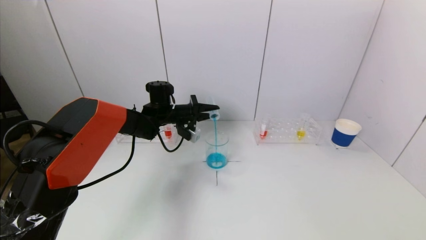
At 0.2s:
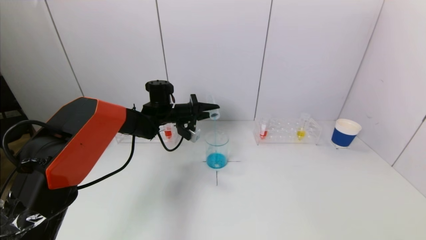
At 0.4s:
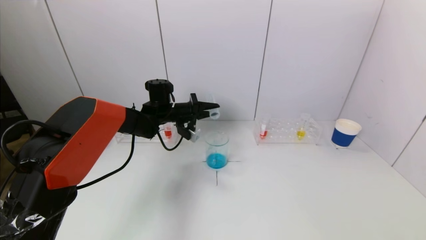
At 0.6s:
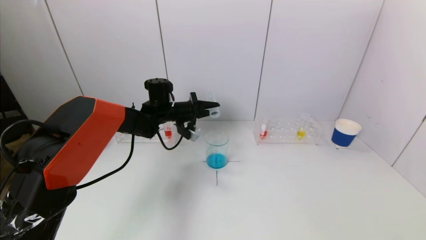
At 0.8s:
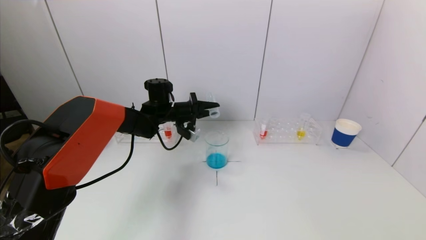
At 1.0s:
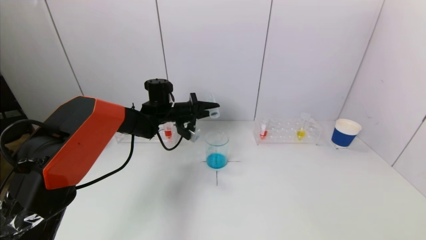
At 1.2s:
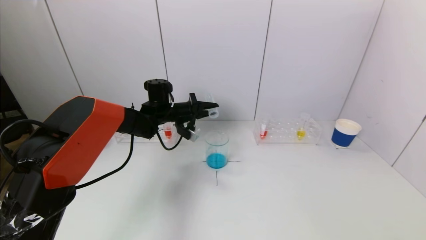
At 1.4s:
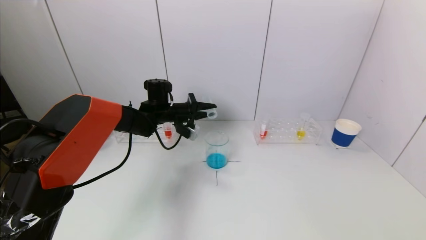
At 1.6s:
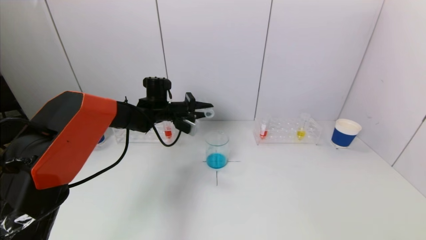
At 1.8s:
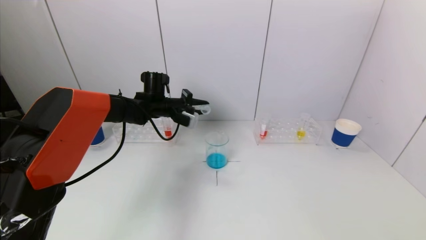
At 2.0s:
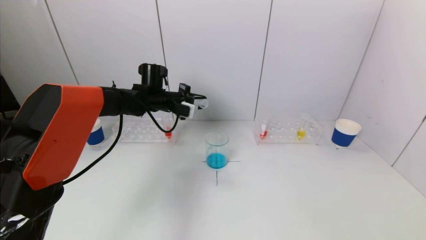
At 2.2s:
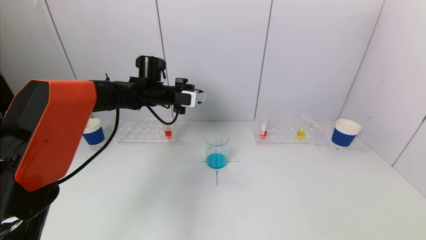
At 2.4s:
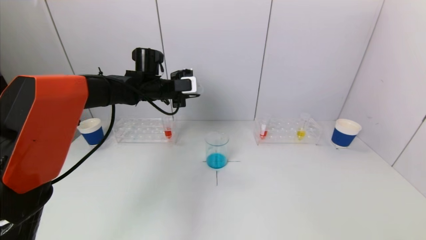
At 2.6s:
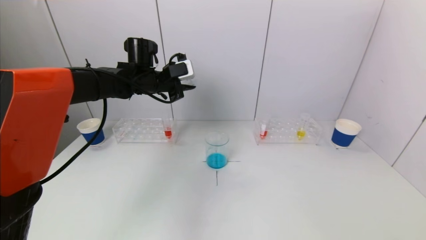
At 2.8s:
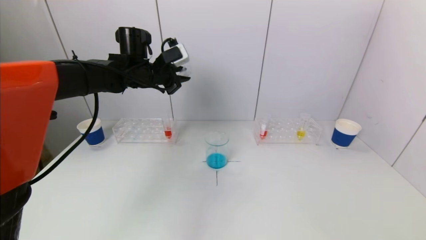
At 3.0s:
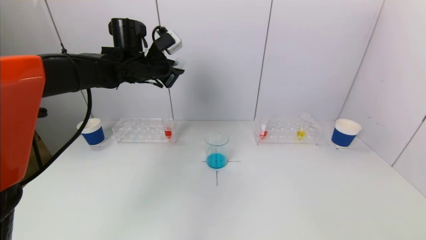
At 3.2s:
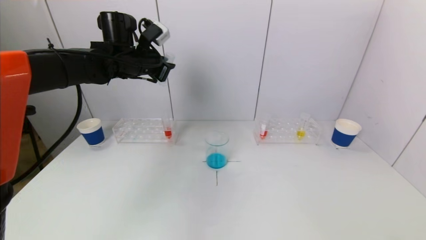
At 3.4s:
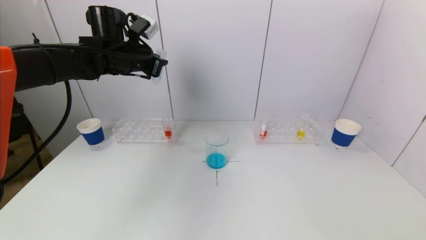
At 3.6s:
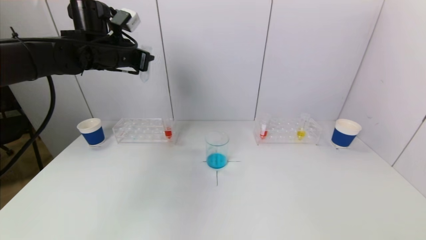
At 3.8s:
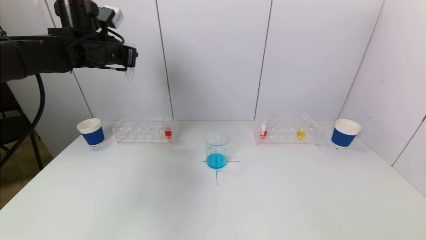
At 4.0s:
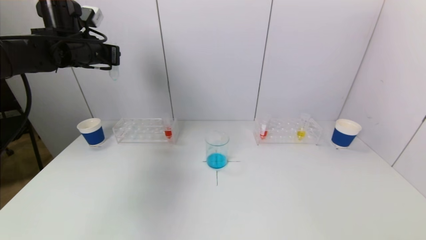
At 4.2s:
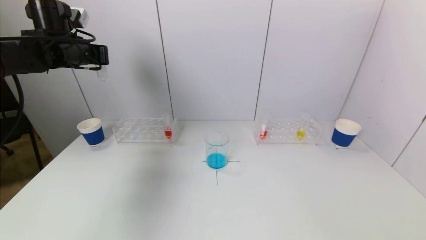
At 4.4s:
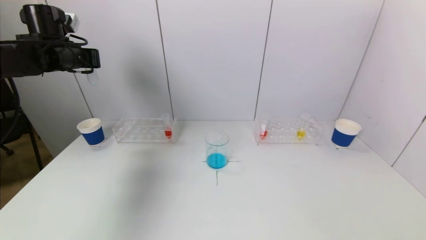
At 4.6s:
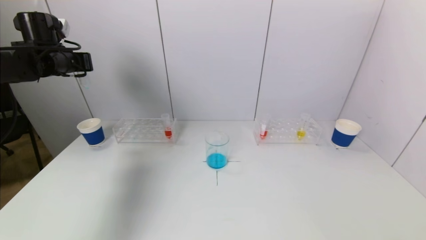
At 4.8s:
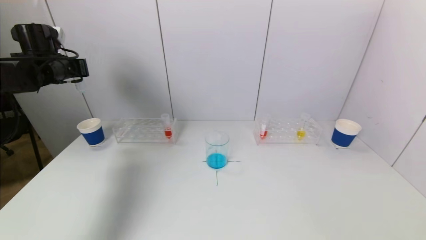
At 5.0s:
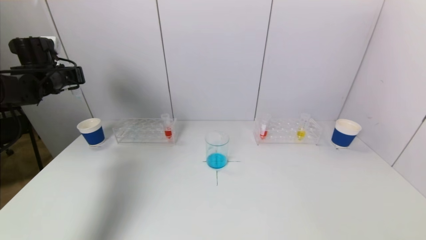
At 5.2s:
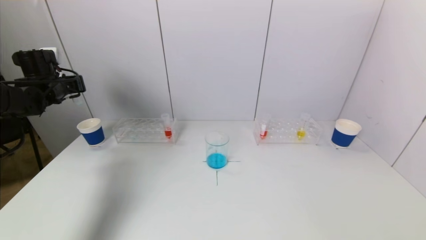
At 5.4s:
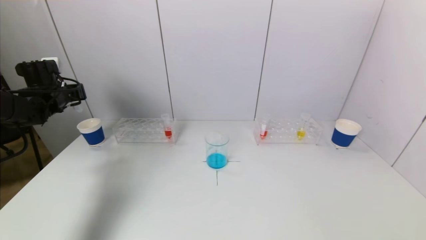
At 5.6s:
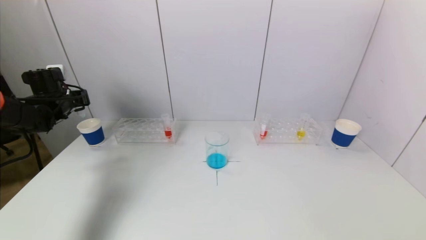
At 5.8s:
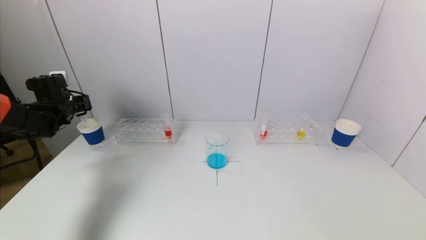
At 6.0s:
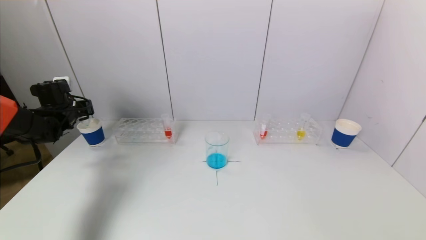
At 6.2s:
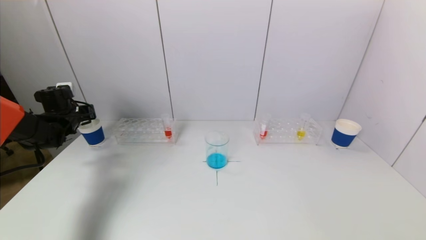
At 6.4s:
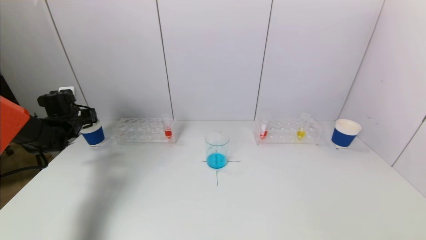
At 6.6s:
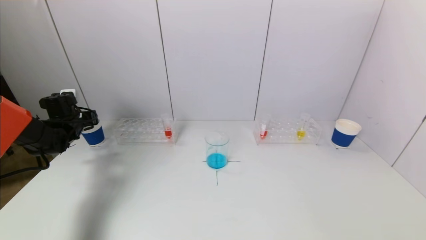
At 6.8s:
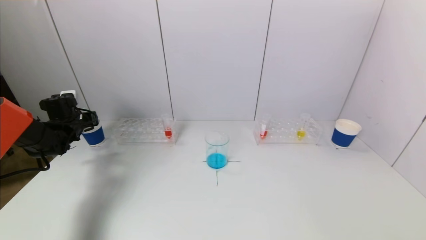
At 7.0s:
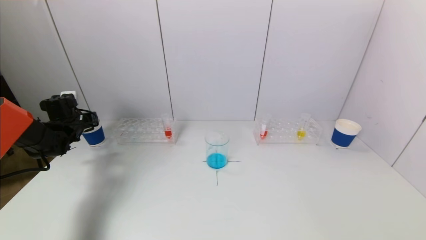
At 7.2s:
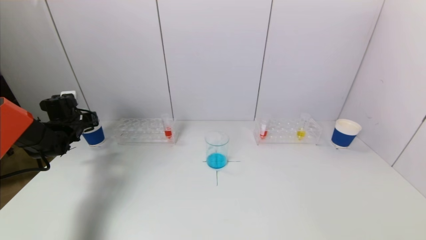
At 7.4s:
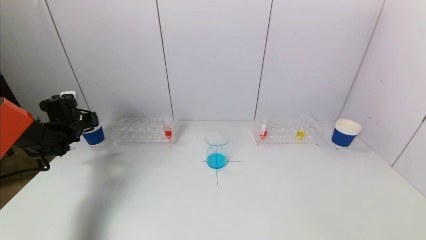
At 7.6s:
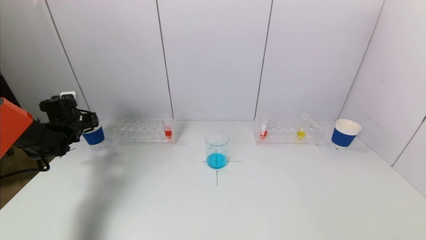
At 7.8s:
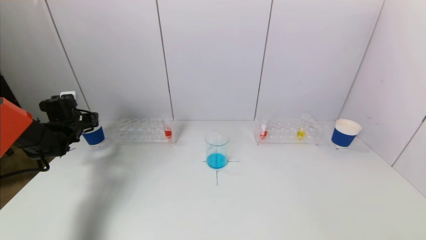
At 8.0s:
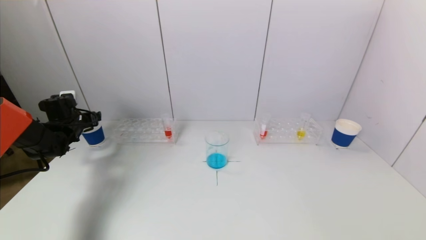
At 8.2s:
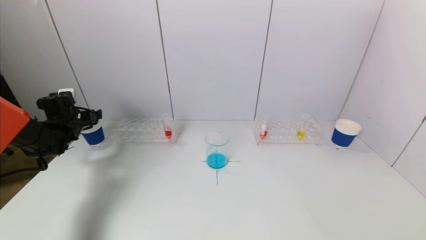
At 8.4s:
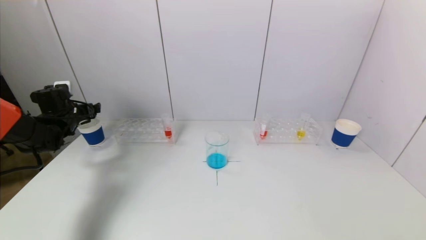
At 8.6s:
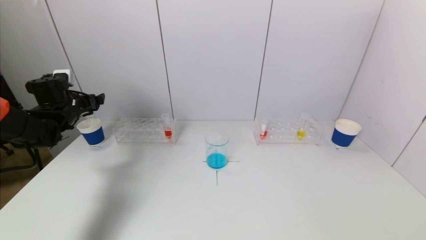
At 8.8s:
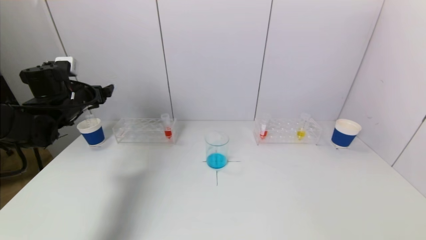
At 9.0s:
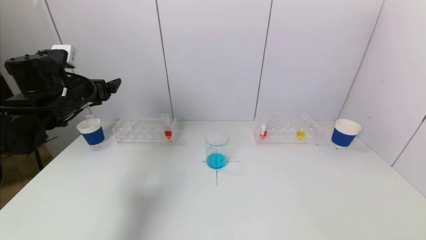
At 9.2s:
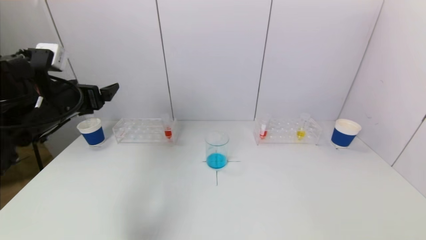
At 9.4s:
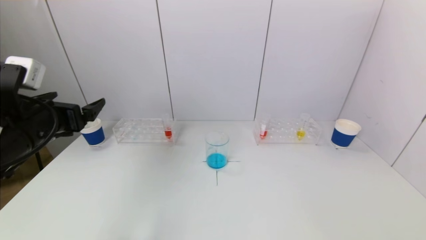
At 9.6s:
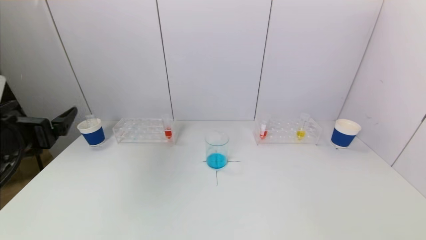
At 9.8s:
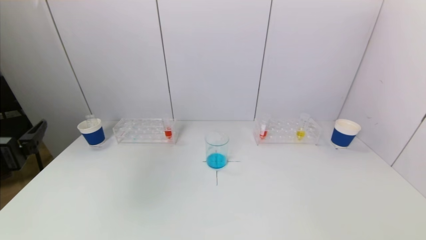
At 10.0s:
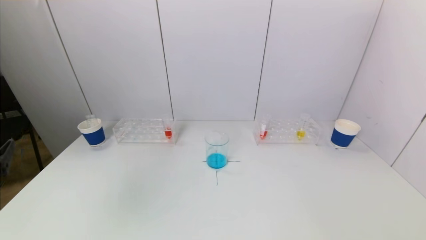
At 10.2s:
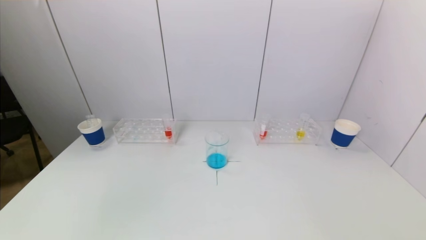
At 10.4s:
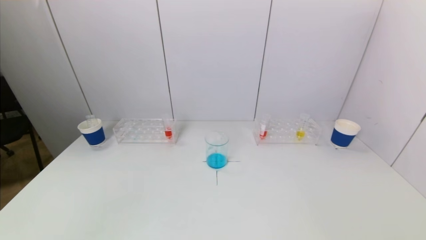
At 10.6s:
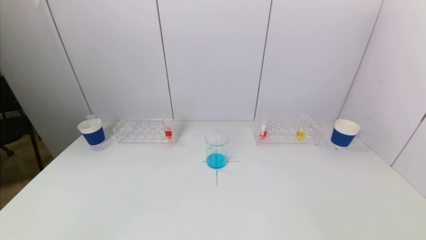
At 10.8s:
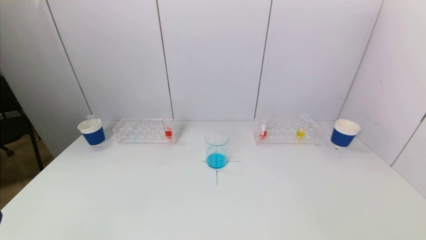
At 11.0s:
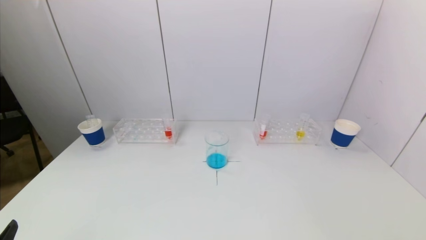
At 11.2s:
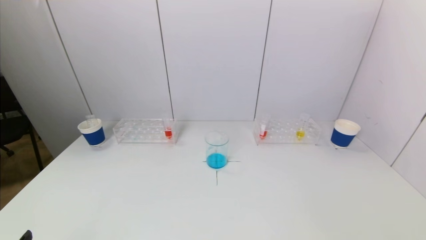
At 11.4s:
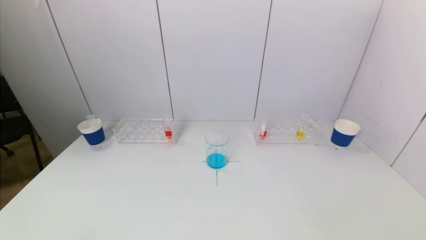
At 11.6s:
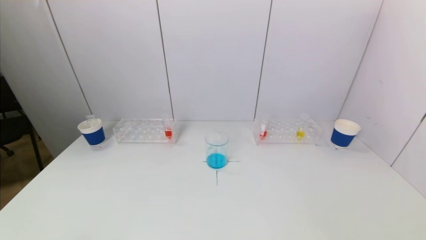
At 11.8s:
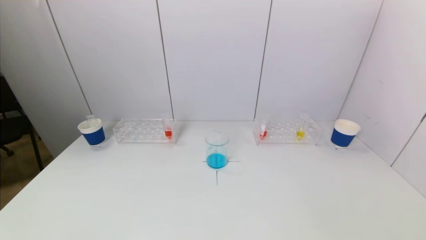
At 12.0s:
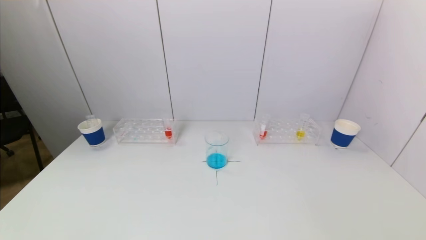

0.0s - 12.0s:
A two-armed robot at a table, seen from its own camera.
Task of the whole recording: pick up a test tube with pigment on left test tube rack and a test tube with pigment on right test tube rack by grippers and pour them into the beaker.
Step, 1.8s - 8.4s: Place the test tube into the paper cup with the left gripper.
0.0s - 1.6s: The grippers make only small movements.
1.6s - 3.0s: The left gripper moves upward, roughly 15 cm.
3.0s - 4.4s: The left gripper shifts approximately 15 cm to the left.
4.4s - 6.0s: The left gripper is displaced downward and to the left by roughly 20 cm.
6.0s - 7.6s: There are only small adjustments of the grippers.
7.6s - 9.0s: The left gripper is displaced upward, to the right and backward by about 20 cm, and opens.
9.0s - 10.4s: The left gripper goes about 30 cm backward.

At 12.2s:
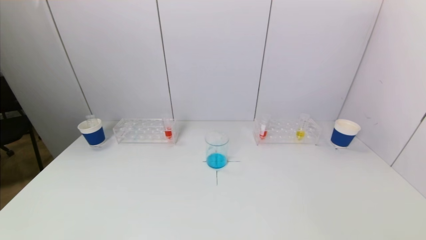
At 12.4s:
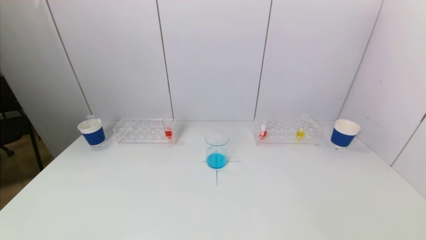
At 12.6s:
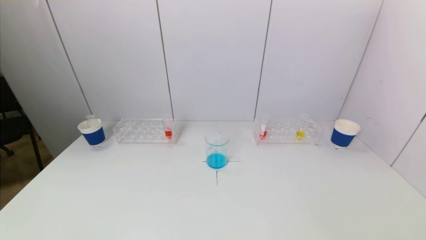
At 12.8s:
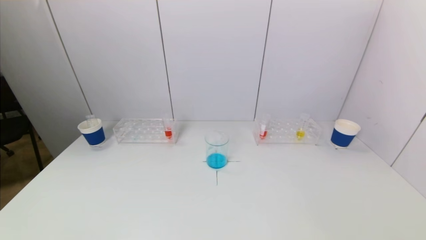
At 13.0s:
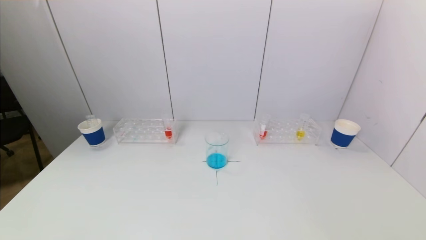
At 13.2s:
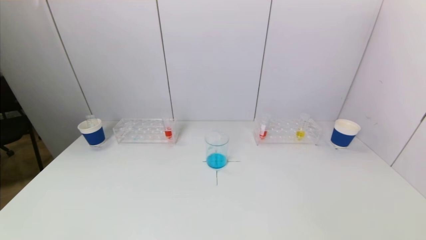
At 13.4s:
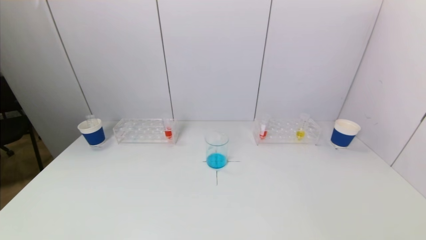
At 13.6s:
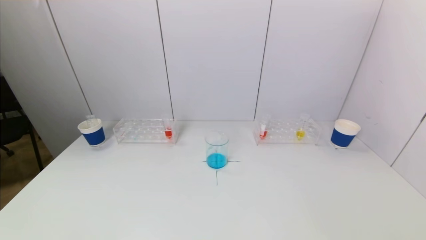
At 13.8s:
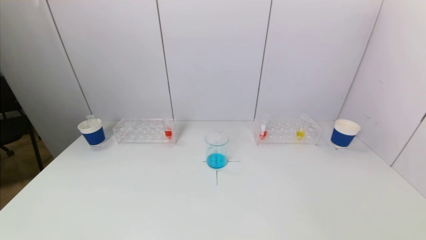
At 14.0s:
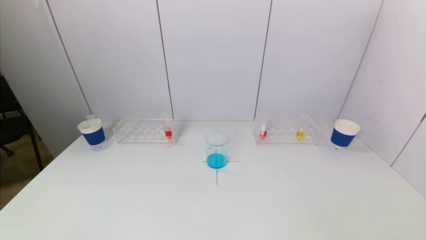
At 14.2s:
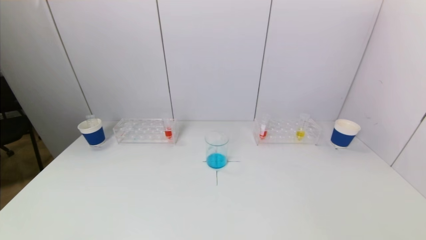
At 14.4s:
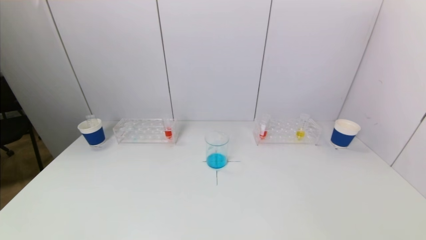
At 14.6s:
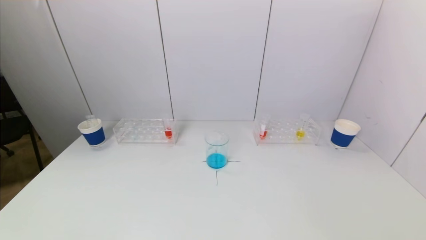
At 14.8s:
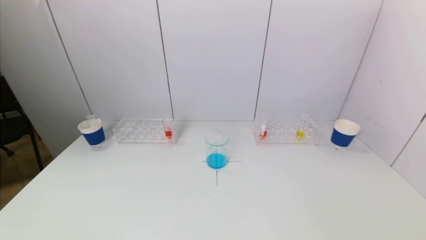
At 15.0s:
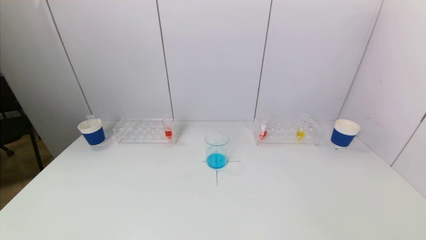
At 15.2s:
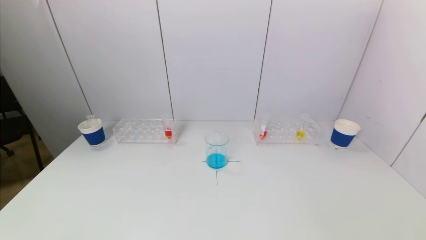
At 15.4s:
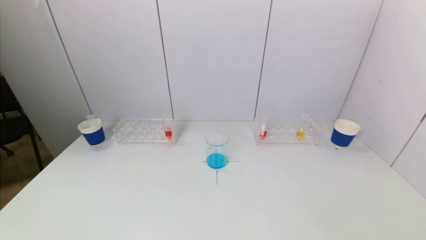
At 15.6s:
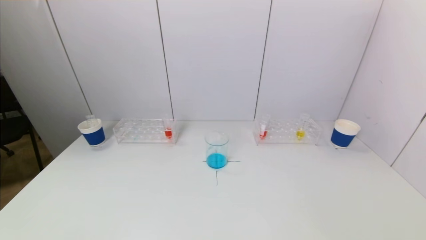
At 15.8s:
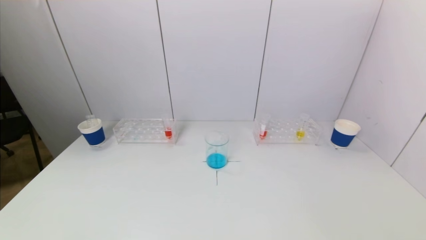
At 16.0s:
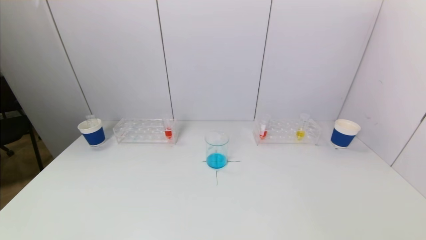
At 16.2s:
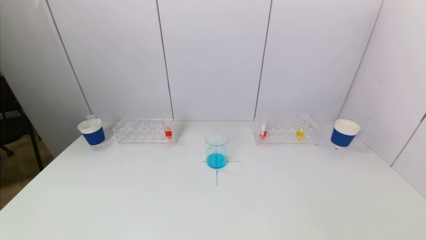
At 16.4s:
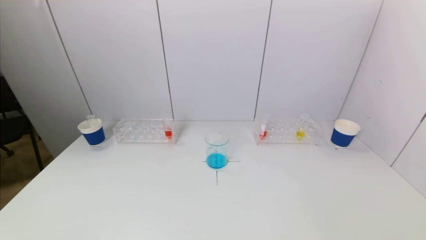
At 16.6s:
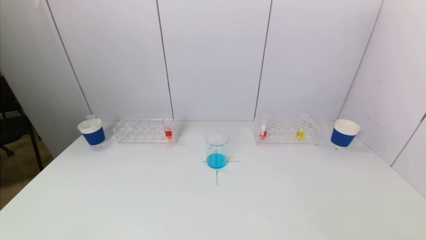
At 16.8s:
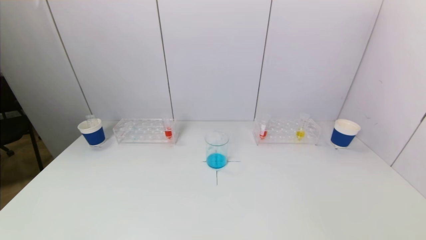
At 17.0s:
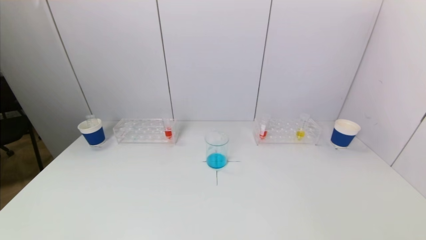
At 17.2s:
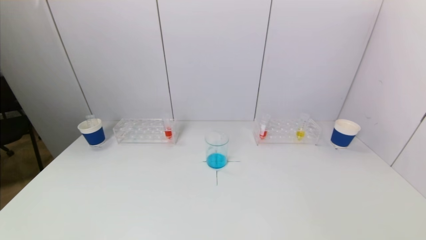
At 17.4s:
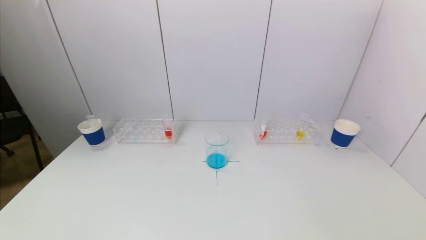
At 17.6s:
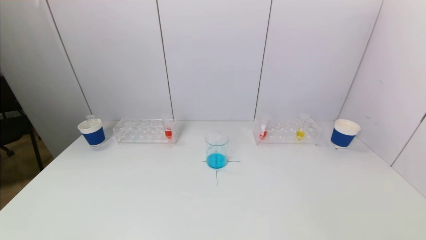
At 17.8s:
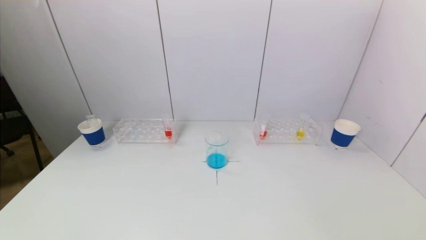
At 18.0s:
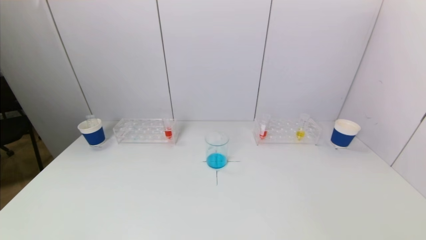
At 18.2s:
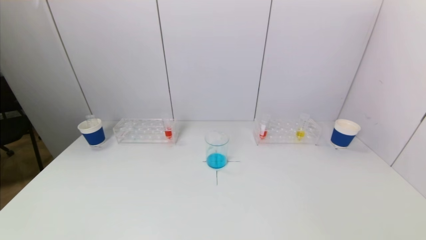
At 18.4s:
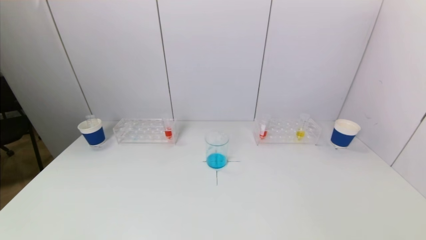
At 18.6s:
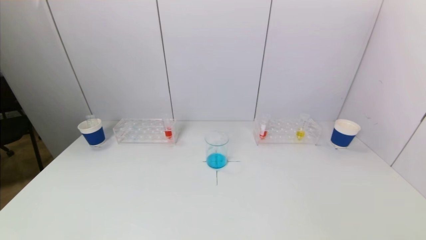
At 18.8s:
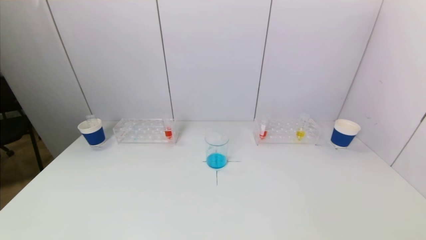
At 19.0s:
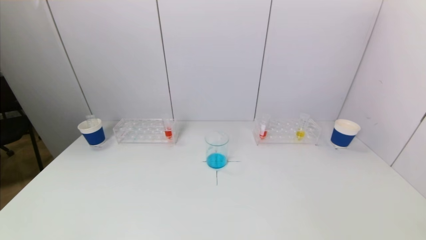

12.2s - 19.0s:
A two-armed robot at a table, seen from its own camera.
Task of the whole recording: pick up a test tube with pigment on left test tube rack and a test tube with pigment on right test tube rack by grippers and pour them into the beaker.
13.6s - 16.2s: The two grippers keep their place.
